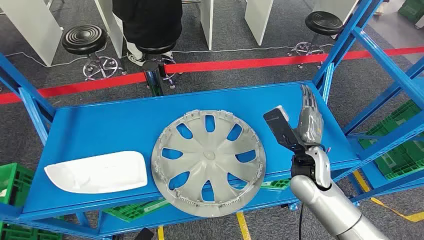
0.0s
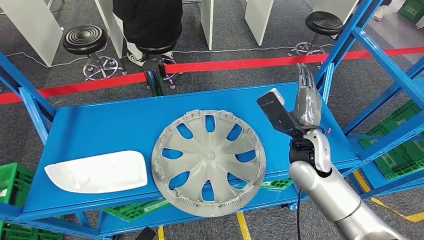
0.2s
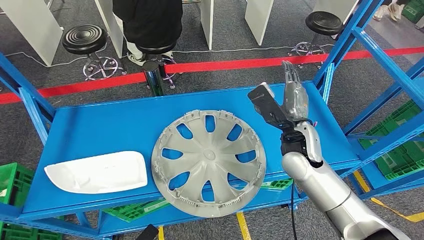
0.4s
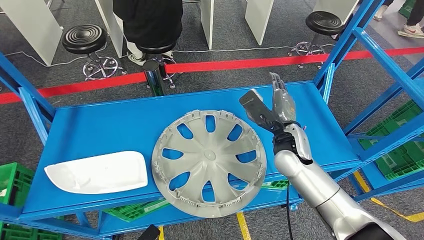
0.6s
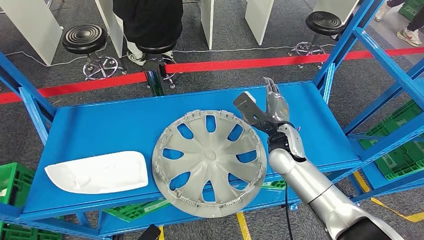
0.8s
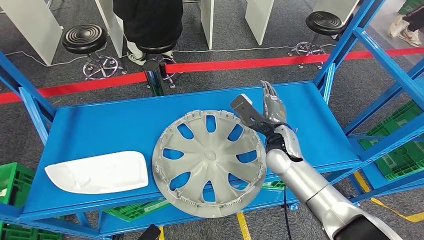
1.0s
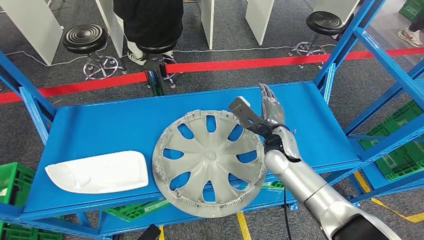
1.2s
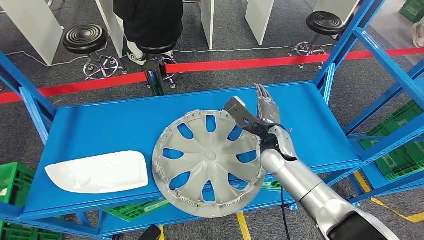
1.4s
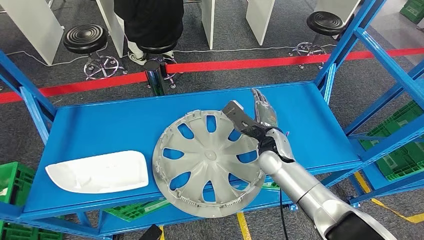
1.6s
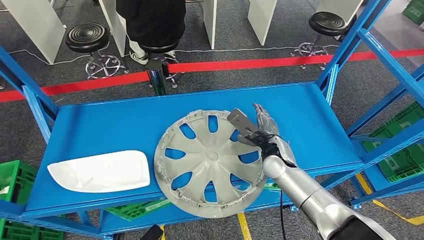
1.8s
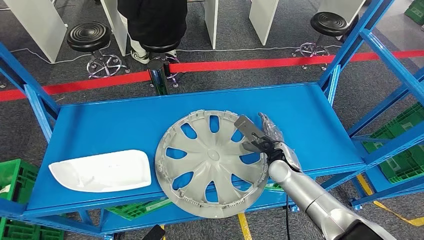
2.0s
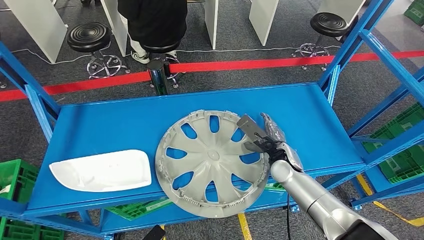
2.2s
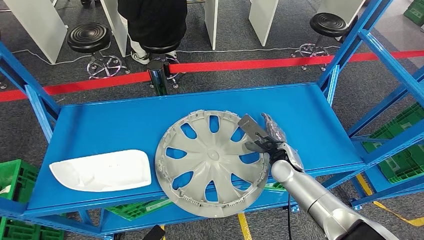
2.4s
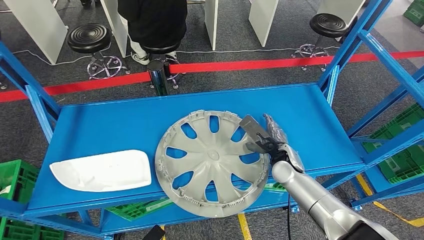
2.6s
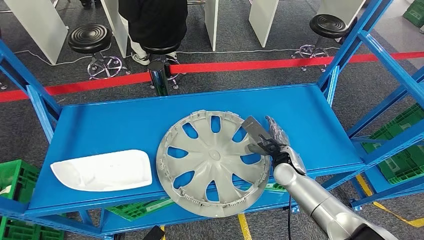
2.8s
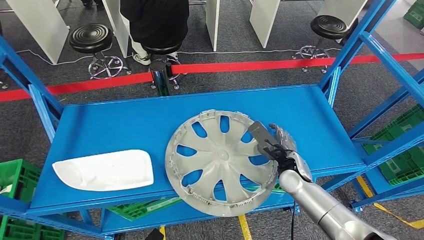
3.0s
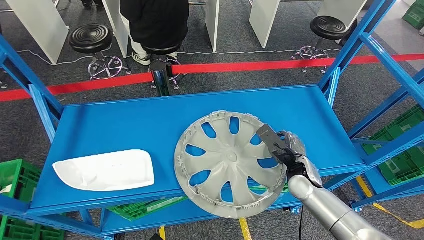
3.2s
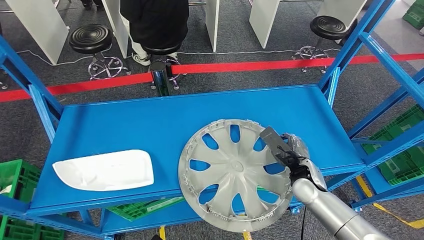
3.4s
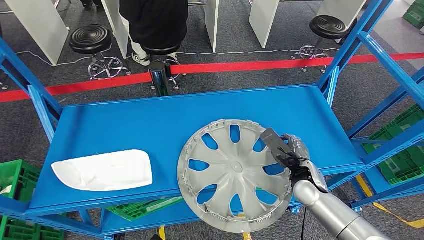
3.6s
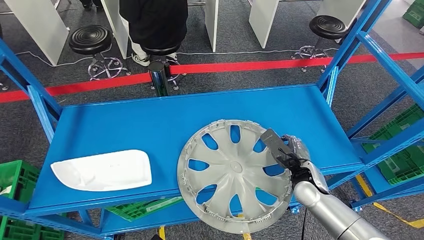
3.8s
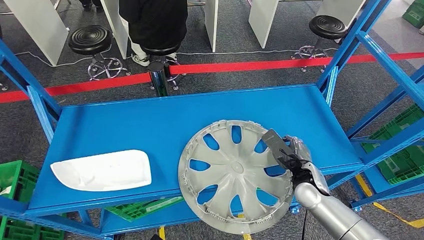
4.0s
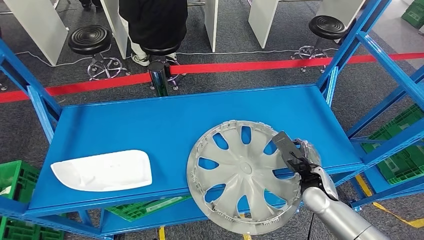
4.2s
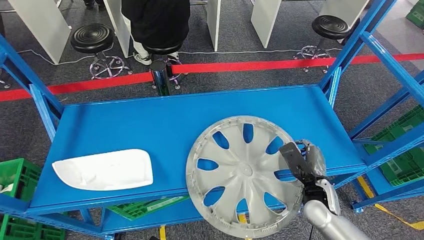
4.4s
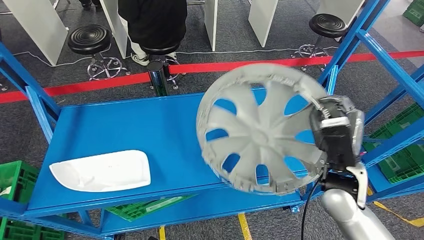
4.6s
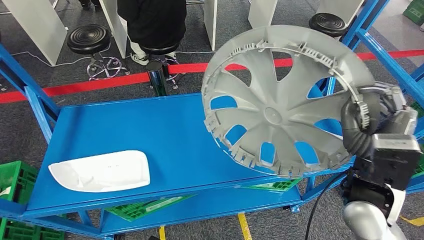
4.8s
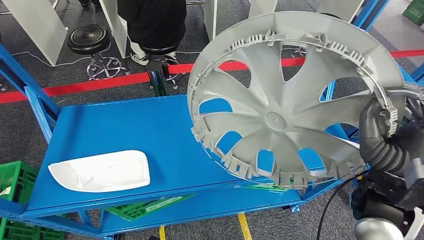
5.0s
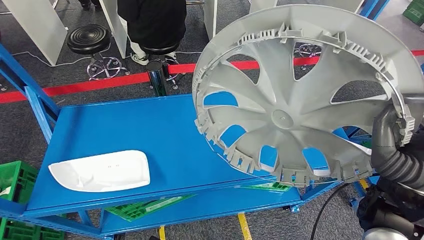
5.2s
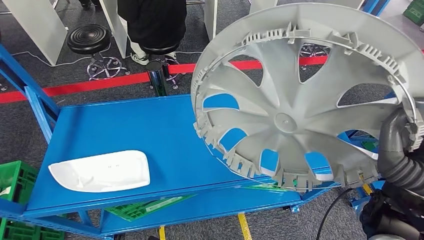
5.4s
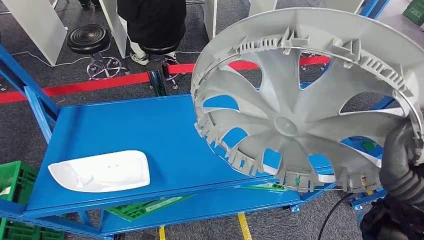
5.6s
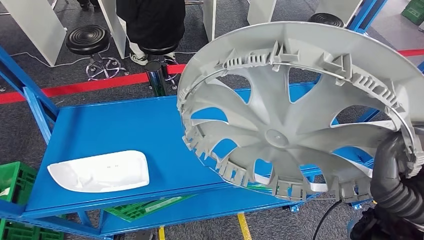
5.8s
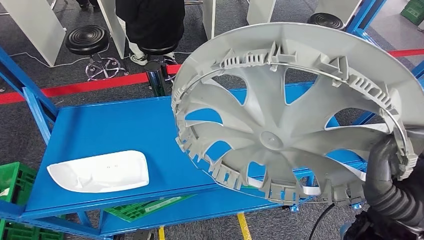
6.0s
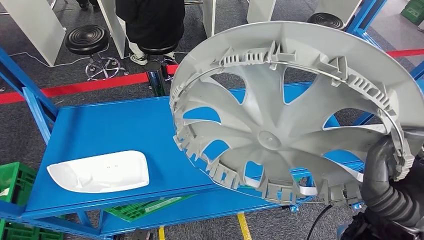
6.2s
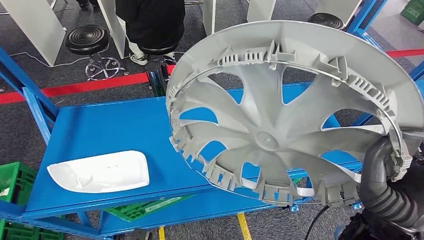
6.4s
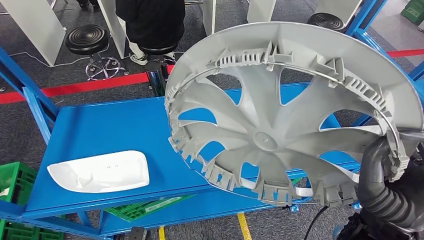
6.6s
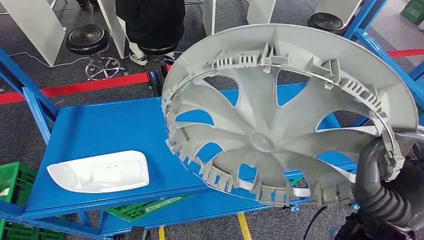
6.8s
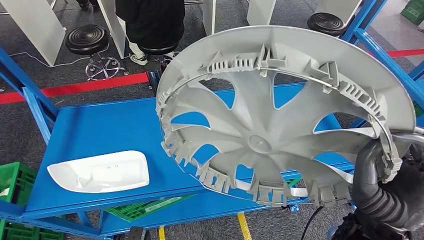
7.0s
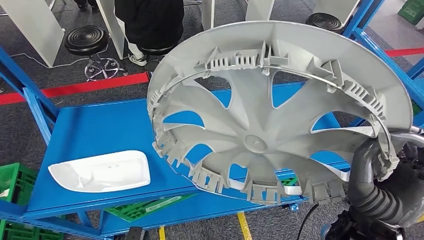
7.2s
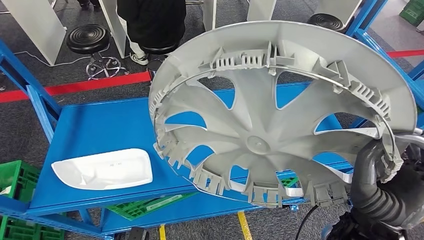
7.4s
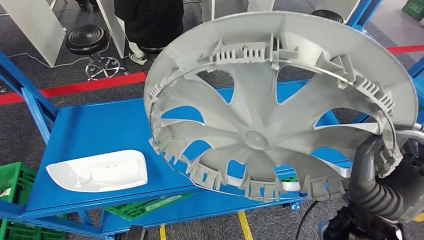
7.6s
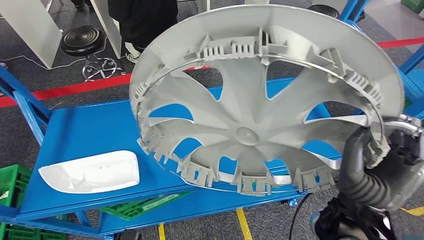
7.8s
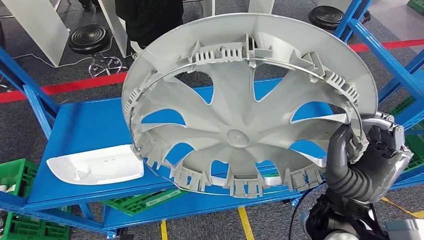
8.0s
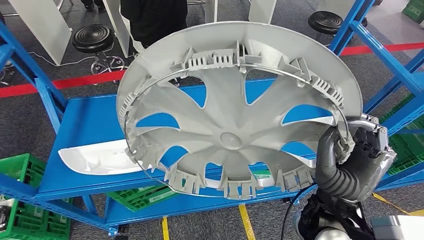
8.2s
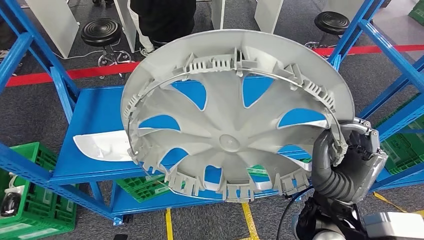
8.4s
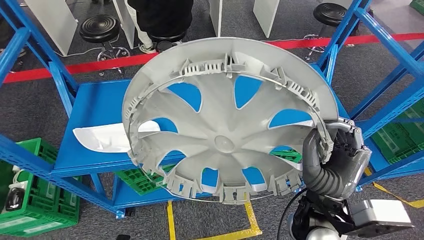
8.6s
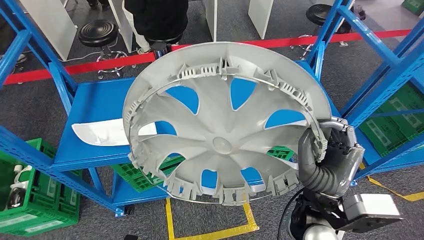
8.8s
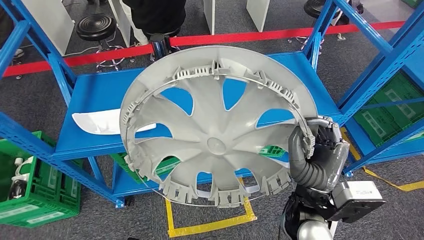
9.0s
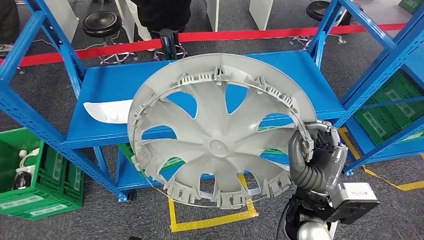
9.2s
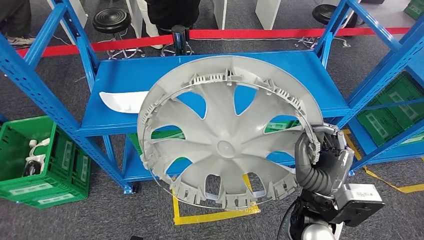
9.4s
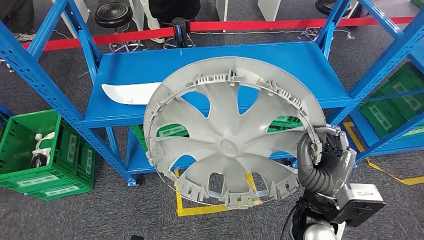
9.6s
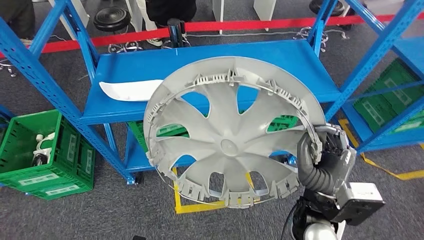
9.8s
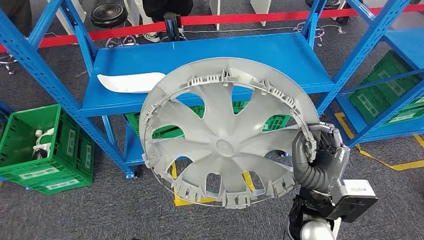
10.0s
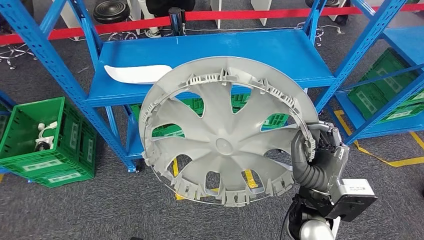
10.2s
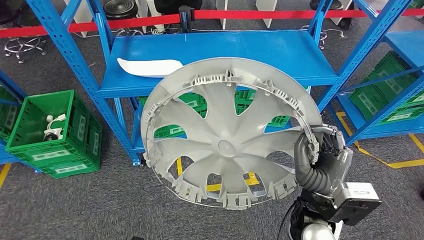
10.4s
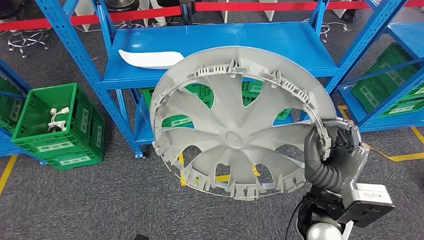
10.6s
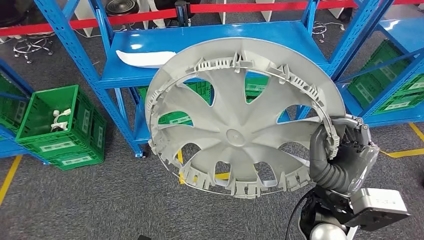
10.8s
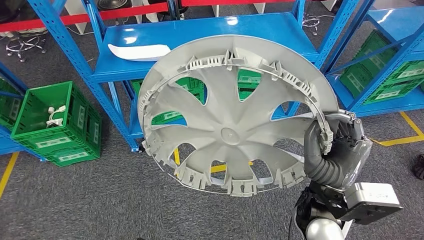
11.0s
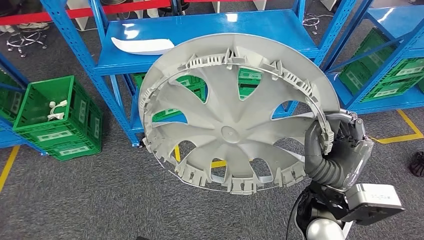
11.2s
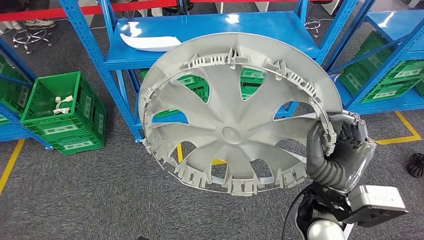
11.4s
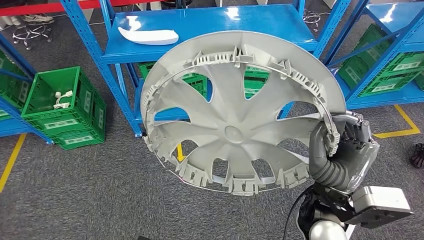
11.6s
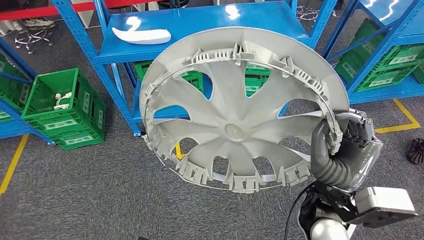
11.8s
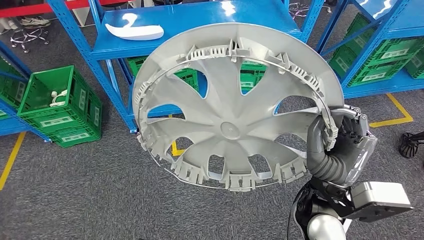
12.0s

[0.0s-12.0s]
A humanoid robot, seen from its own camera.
Step, 0.0s to 8.0s: Pick up the small component from the shelf.
3.0s to 4.4s: The right hand shifts some 5 cm backward.

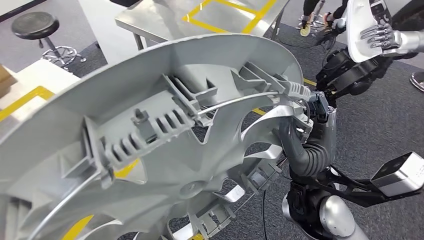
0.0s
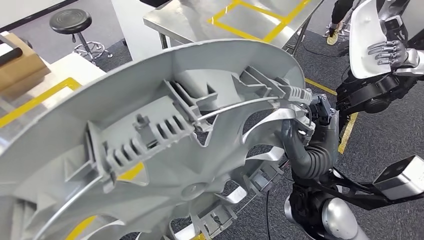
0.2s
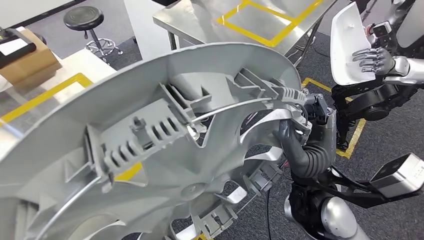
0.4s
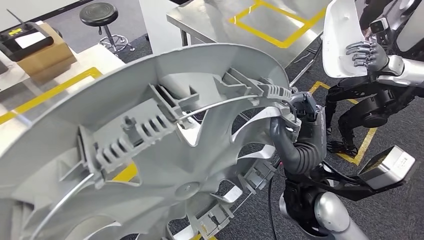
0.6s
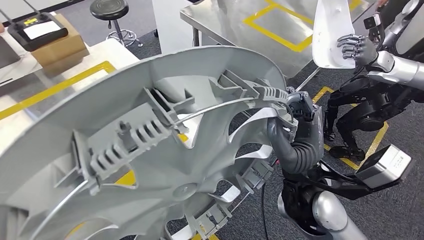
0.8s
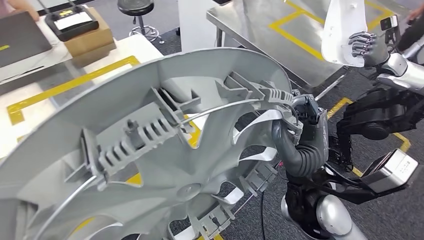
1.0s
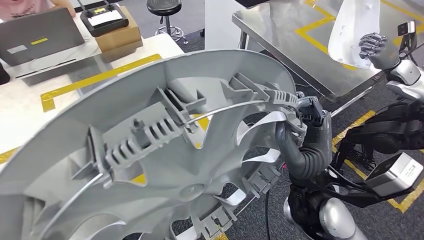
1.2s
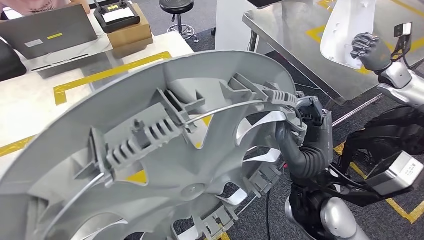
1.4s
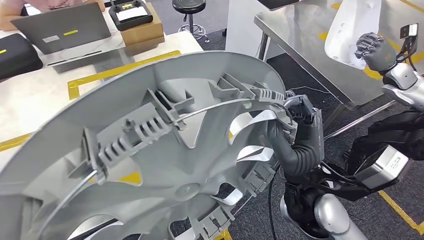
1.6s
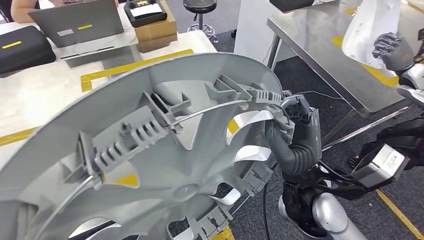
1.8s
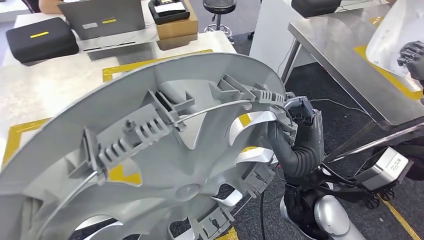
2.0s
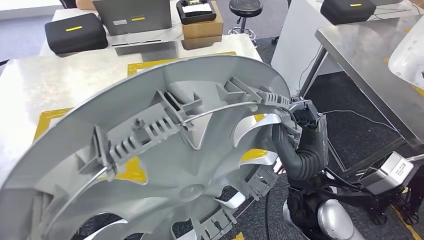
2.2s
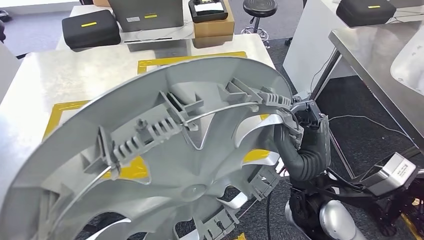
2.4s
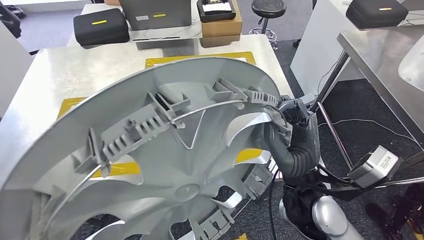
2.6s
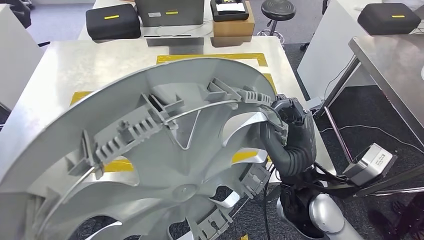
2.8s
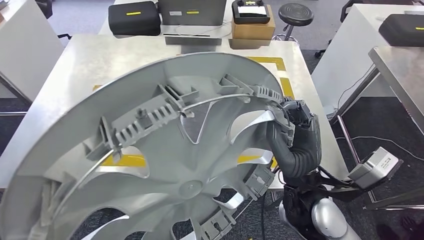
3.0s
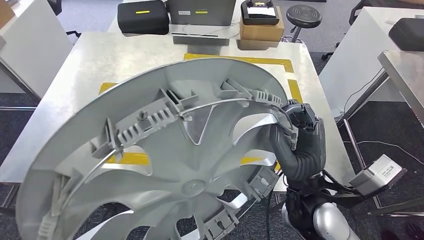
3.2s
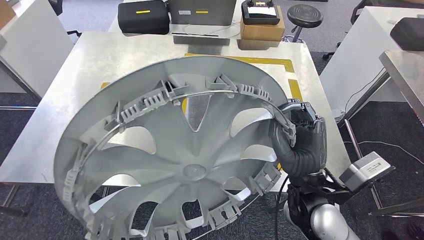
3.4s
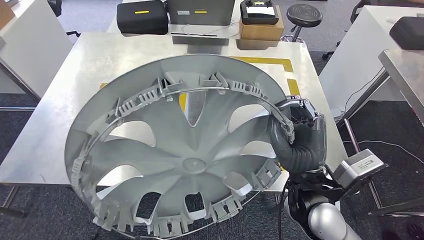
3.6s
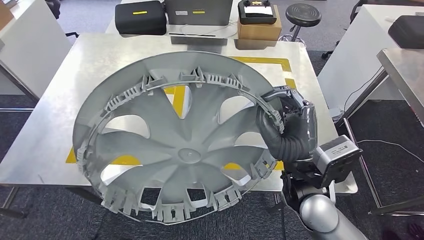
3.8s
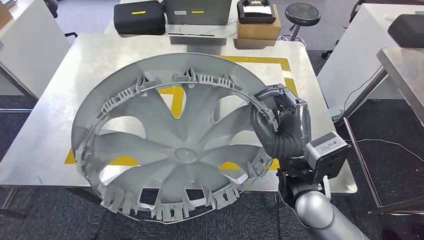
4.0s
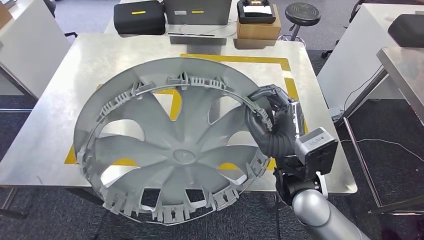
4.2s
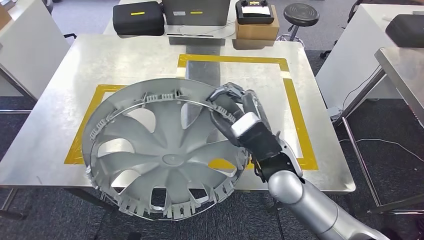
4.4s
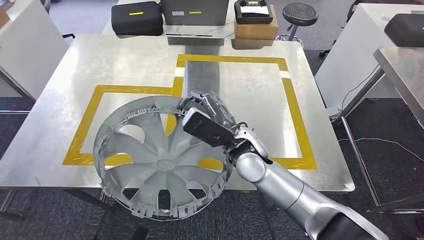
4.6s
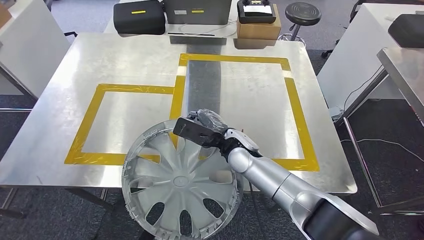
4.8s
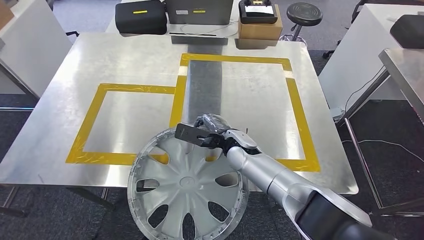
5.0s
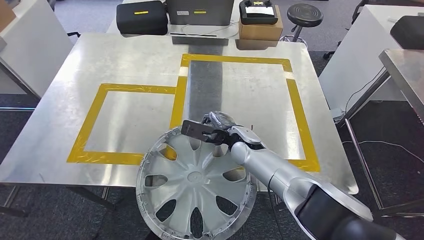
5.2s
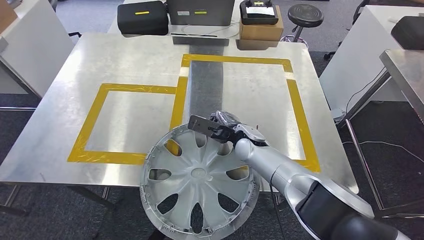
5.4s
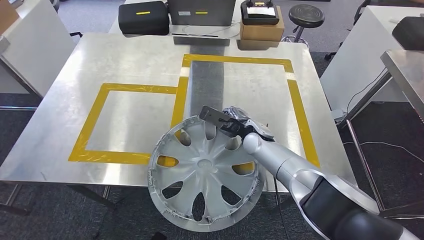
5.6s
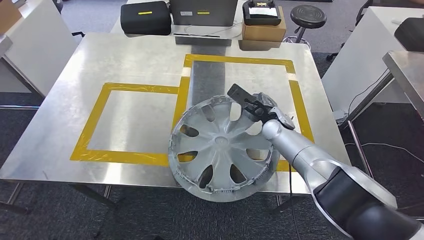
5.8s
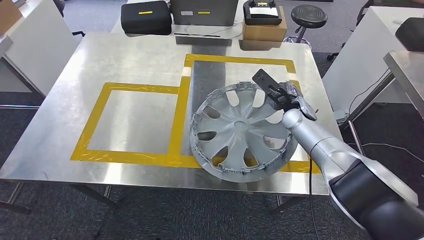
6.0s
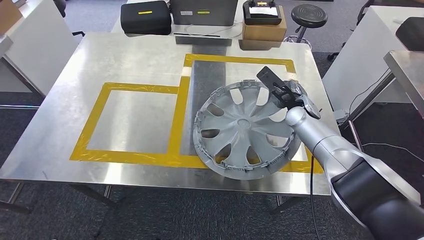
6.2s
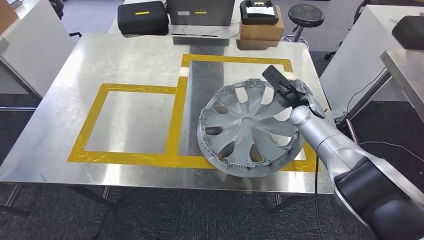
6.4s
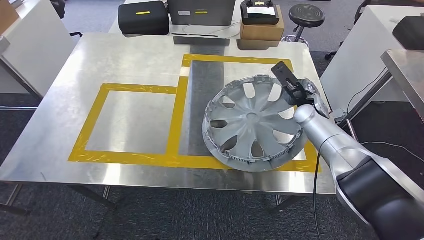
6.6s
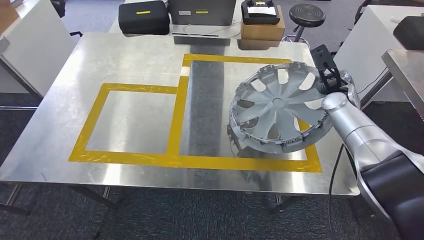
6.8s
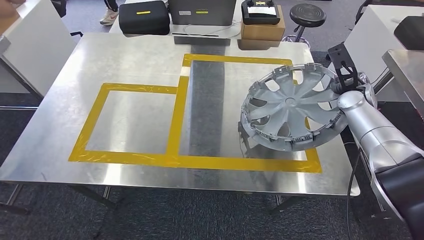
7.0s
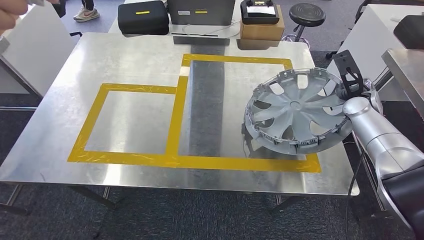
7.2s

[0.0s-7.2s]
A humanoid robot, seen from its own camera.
Step, 0.0s to 2.8s: Bring the small component to the front of the workbench.
